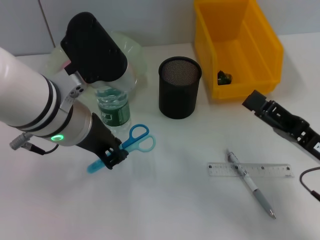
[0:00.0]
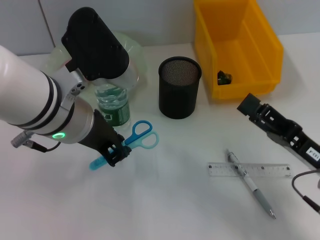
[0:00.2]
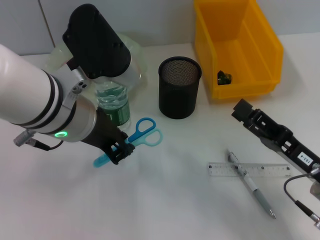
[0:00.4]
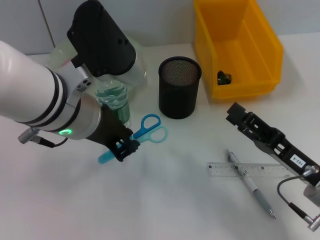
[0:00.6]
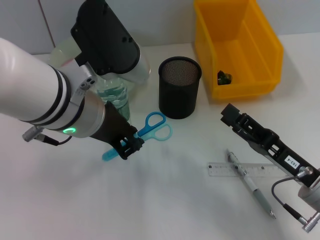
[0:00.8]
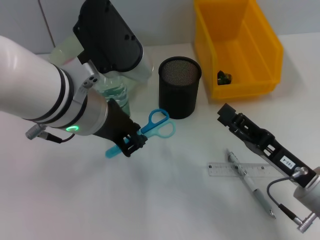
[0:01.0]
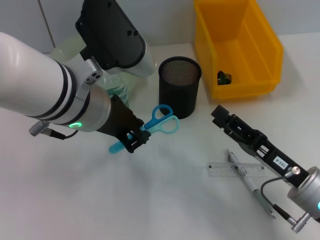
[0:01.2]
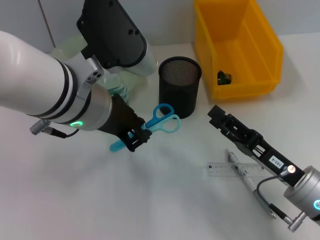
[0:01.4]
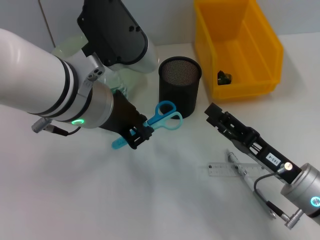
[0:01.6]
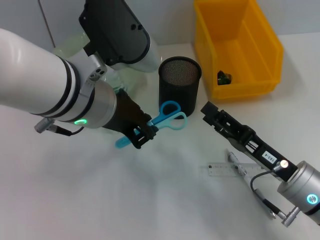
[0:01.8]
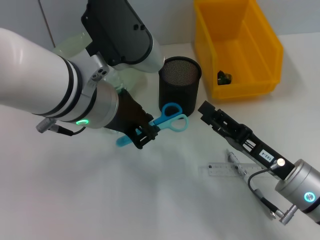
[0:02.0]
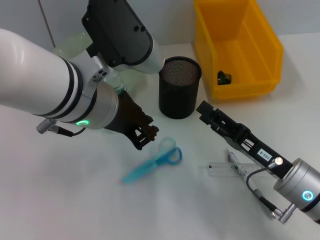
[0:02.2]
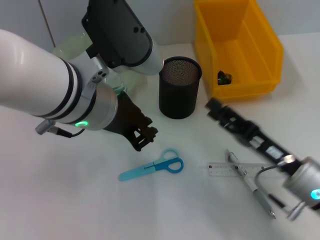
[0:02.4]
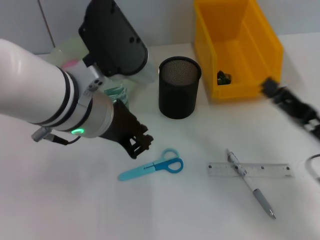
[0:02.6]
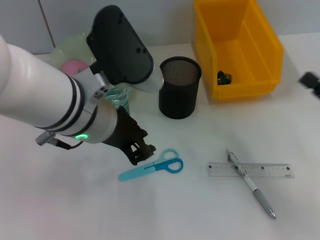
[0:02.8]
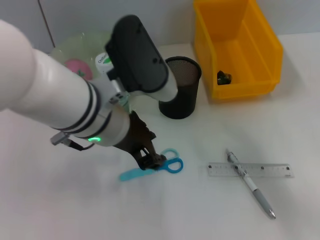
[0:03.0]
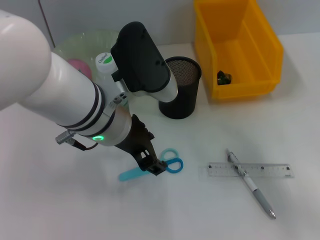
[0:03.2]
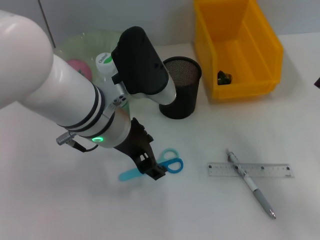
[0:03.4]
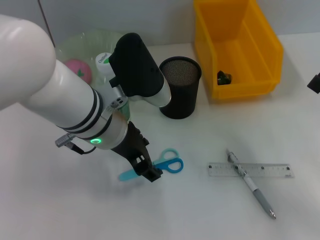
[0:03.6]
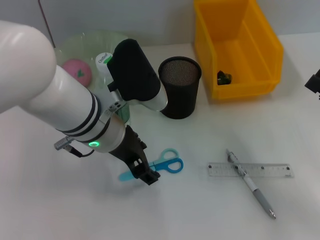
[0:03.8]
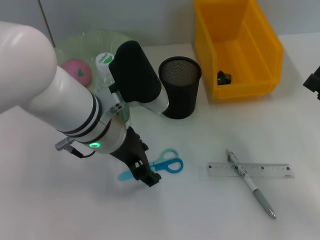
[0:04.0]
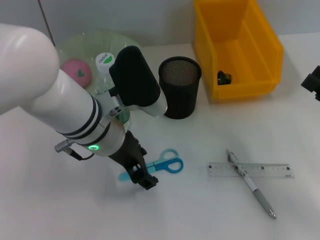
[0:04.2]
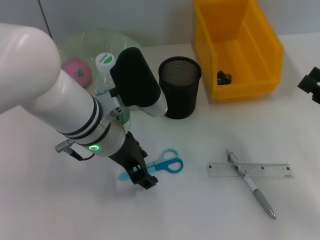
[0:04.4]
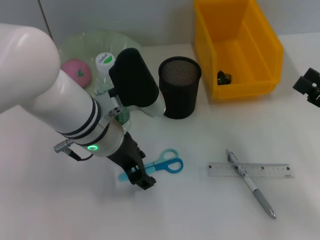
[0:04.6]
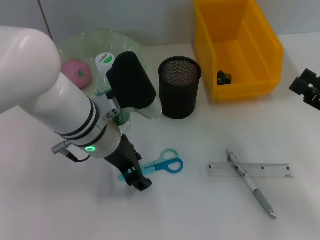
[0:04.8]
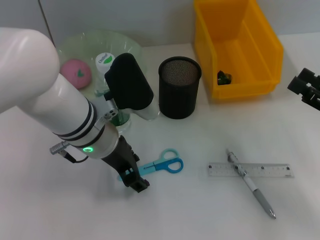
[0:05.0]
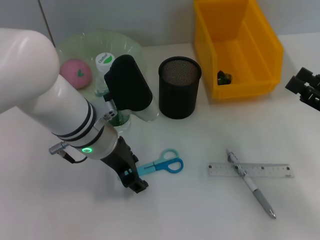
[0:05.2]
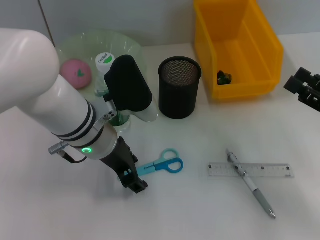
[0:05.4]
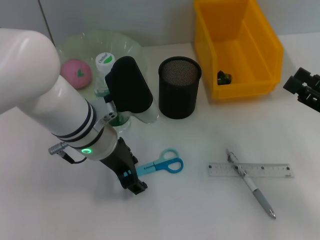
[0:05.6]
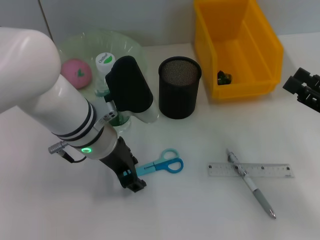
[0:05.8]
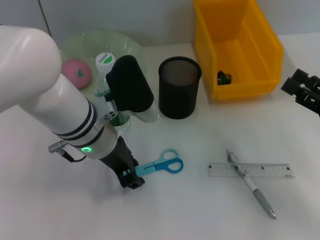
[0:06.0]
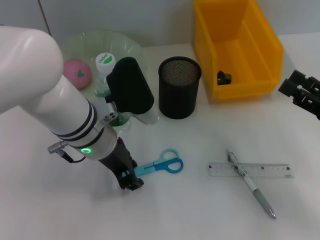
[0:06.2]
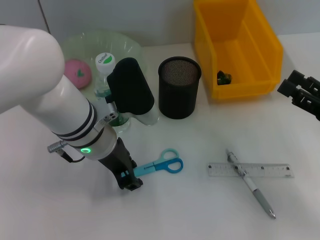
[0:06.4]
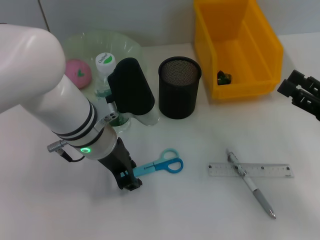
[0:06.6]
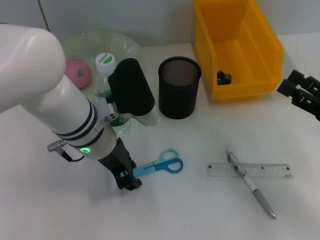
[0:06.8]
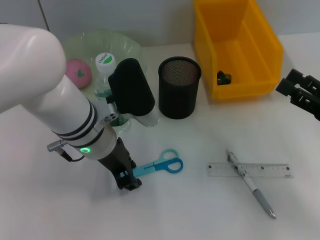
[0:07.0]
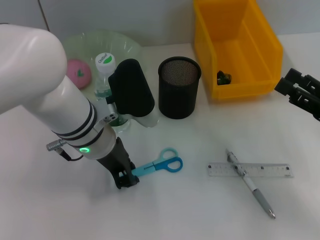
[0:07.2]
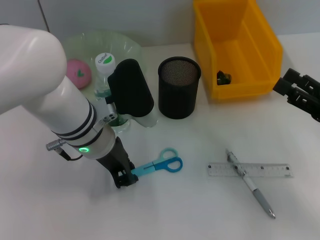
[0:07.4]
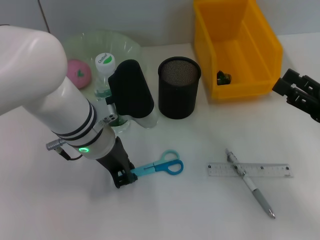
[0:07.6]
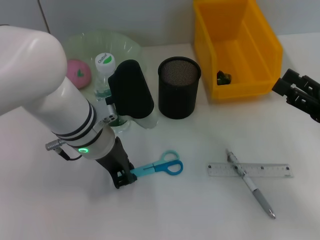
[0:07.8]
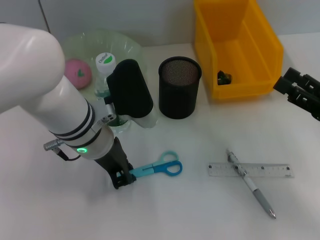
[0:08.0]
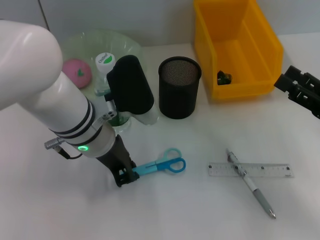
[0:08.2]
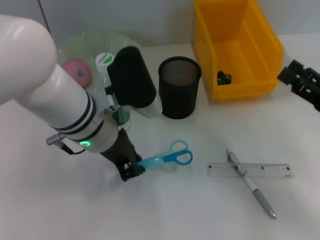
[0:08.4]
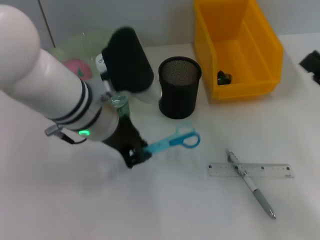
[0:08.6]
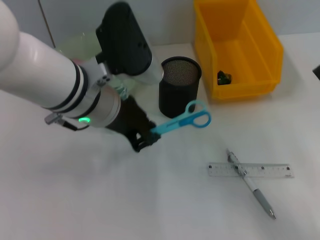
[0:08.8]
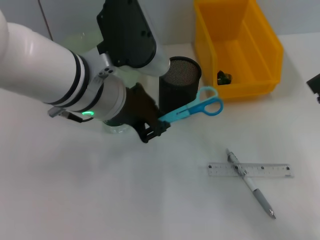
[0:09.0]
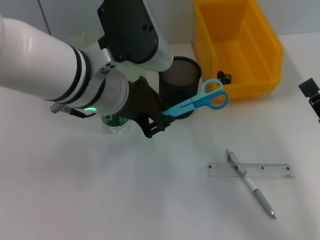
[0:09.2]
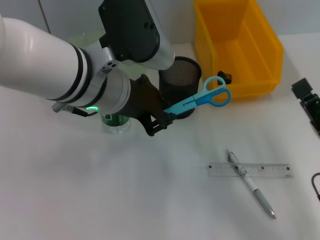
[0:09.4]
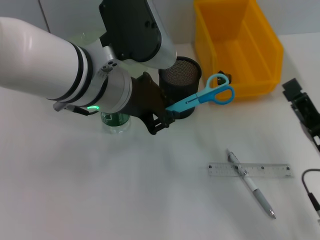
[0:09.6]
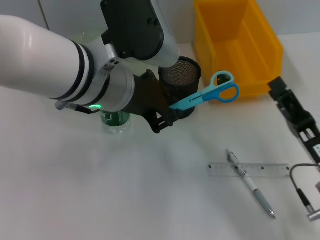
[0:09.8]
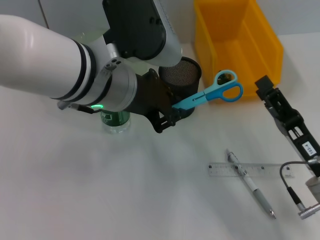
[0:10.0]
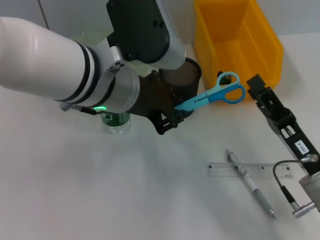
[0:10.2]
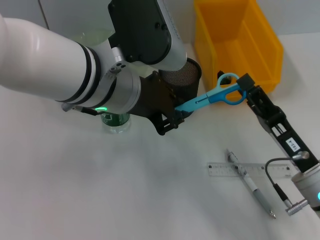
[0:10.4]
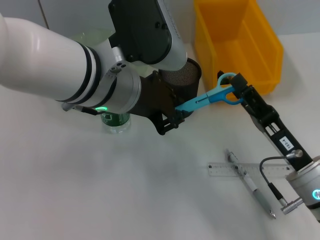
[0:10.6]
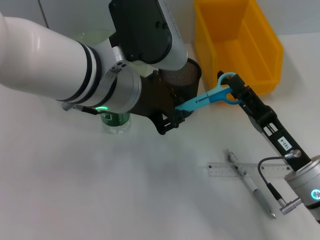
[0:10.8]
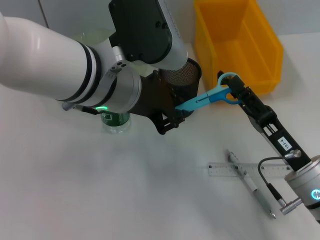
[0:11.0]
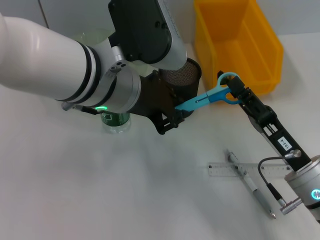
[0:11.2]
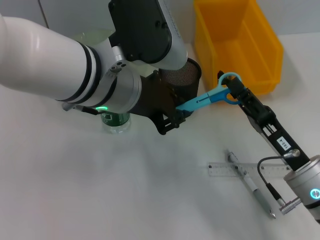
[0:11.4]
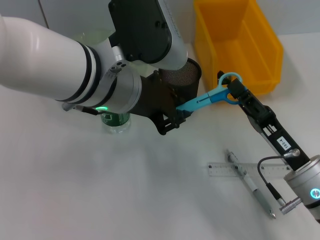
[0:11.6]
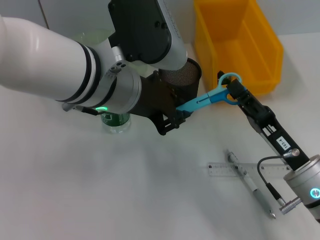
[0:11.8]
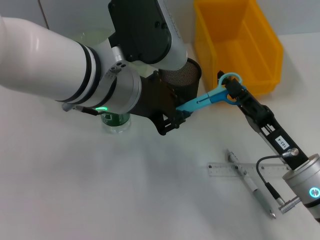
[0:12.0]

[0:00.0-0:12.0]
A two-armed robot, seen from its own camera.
Step, 0:00.0 to 0:07.4: Grab the blue scissors with the left hand.
0:00.0 to 0:01.6: The right gripper travels to the left by approximately 5 cm.
0:01.6 to 0:03.0: The right gripper is displaced to the right and upward by approximately 15 cm.
0:03.0 to 0:04.4: The left gripper heads downward, covering approximately 5 cm, and opens.
0:04.4 to 0:06.0: The left gripper closes up.
0:06.0 to 0:07.6: The left gripper closes its fingers.
0:07.6 to 0:09.0: The left gripper goes some 10 cm upward. Meanwhile the right gripper moves backward, approximately 5 cm.
0:09.0 to 0:10.4: The right gripper shifts approximately 10 cm to the left.
0:10.4 to 0:12.0: The right gripper closes up.

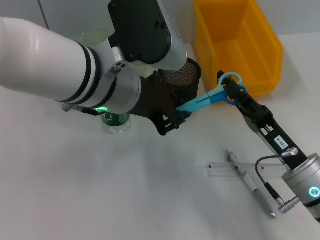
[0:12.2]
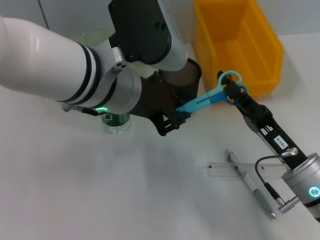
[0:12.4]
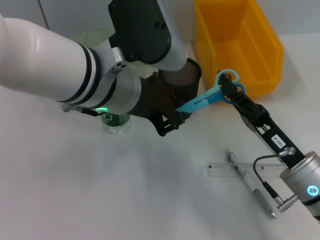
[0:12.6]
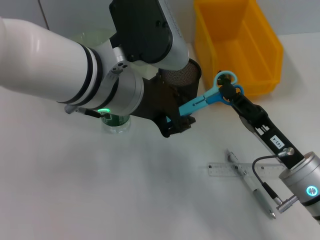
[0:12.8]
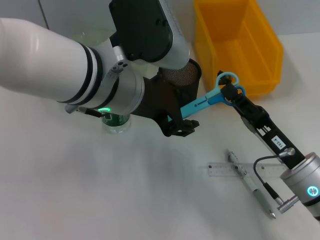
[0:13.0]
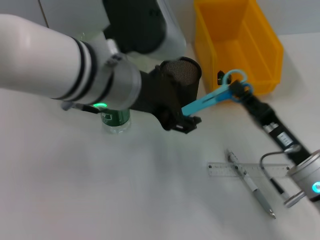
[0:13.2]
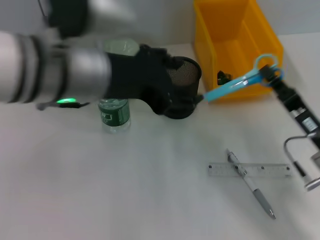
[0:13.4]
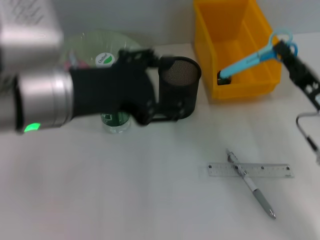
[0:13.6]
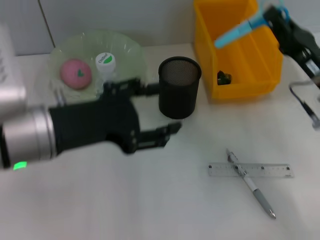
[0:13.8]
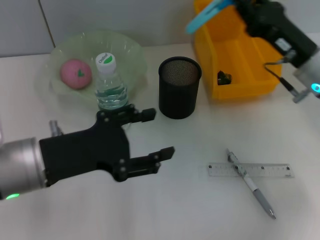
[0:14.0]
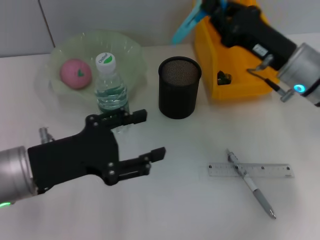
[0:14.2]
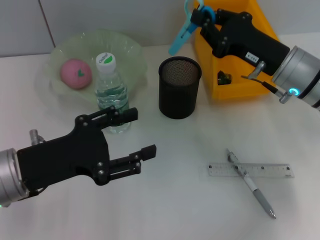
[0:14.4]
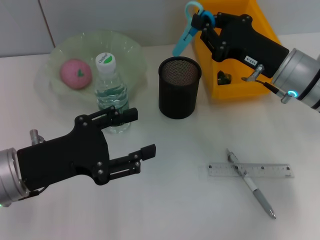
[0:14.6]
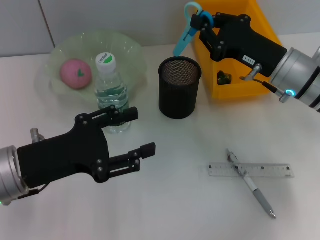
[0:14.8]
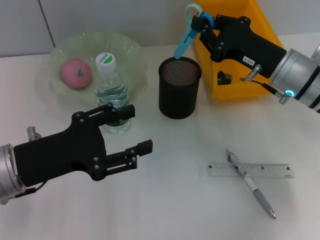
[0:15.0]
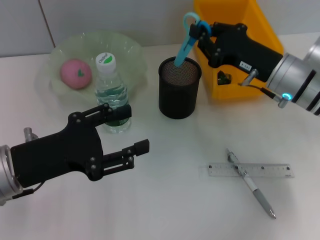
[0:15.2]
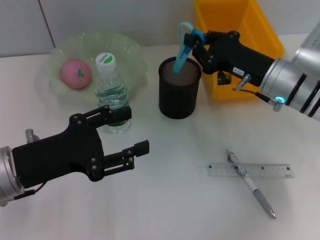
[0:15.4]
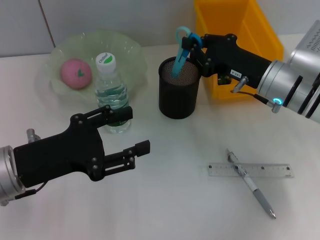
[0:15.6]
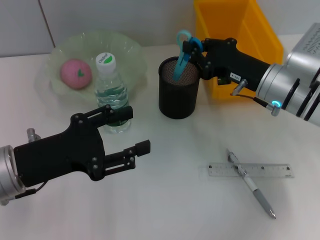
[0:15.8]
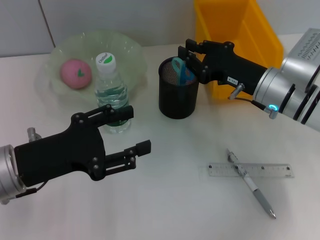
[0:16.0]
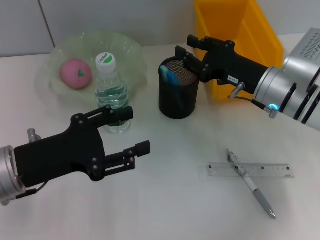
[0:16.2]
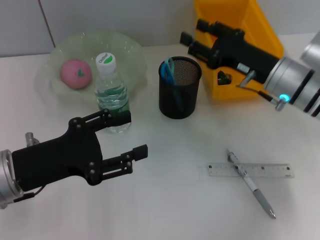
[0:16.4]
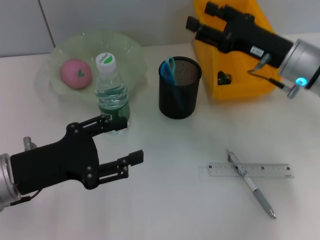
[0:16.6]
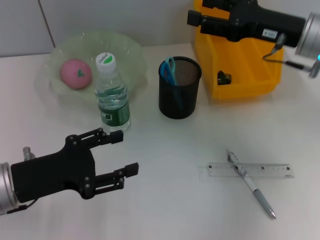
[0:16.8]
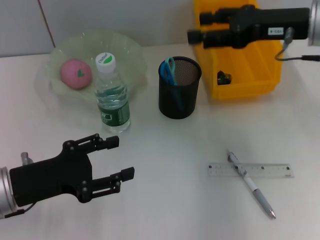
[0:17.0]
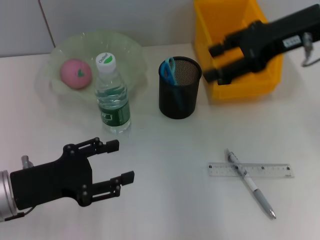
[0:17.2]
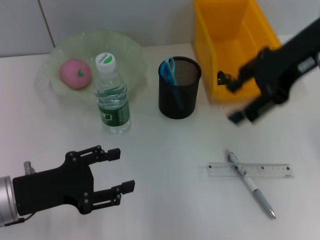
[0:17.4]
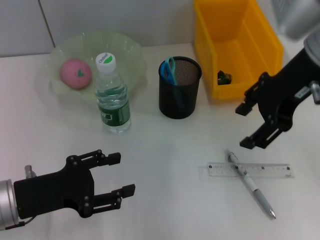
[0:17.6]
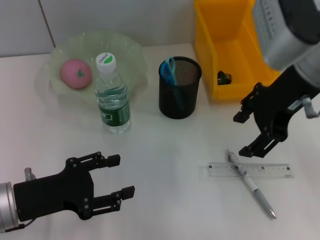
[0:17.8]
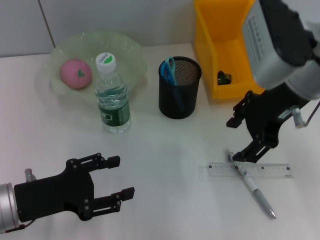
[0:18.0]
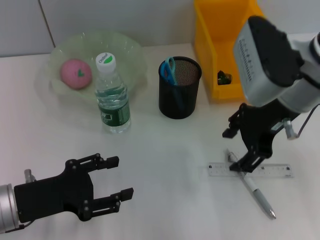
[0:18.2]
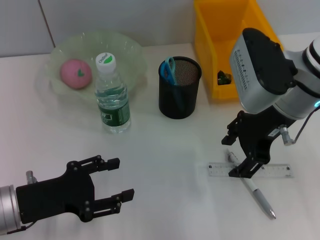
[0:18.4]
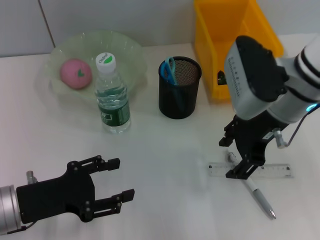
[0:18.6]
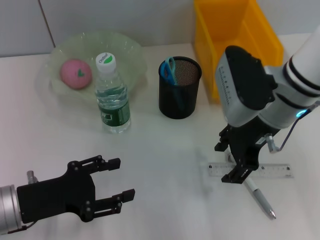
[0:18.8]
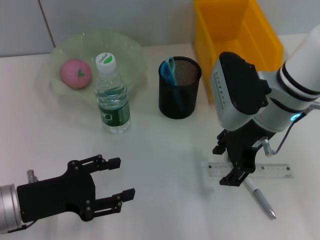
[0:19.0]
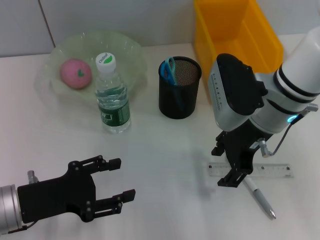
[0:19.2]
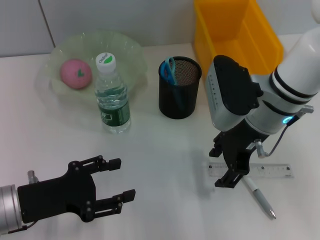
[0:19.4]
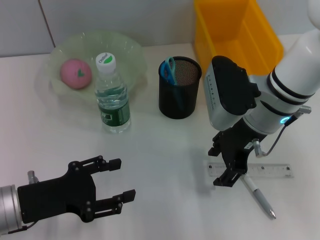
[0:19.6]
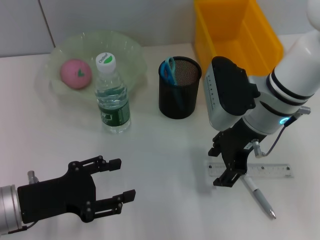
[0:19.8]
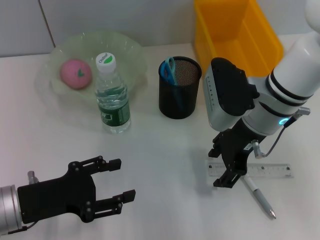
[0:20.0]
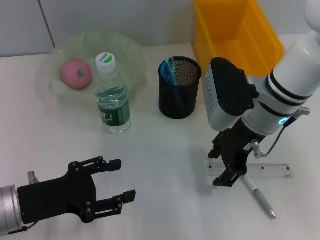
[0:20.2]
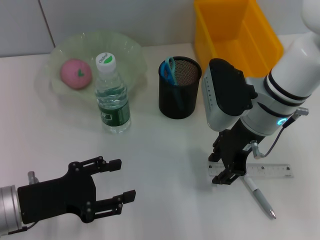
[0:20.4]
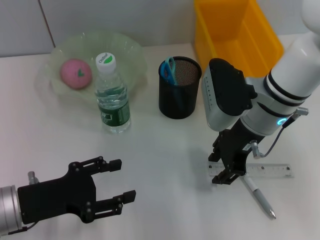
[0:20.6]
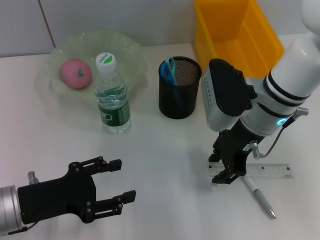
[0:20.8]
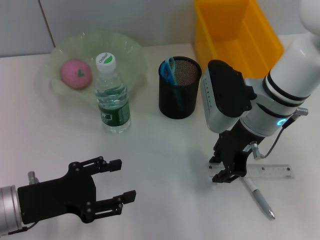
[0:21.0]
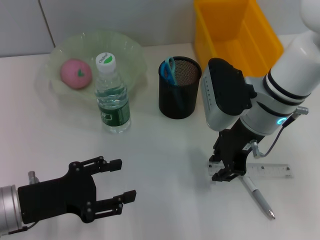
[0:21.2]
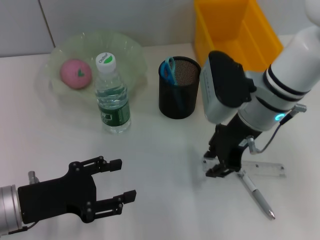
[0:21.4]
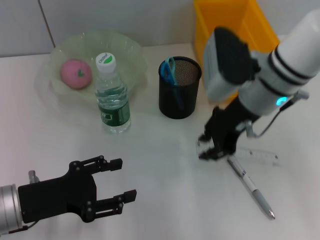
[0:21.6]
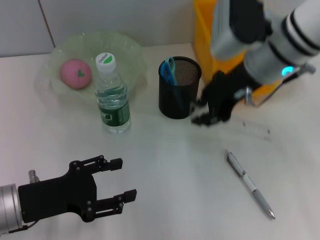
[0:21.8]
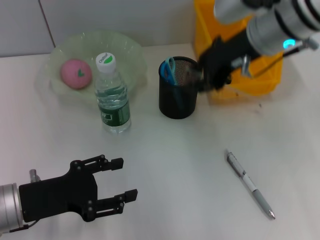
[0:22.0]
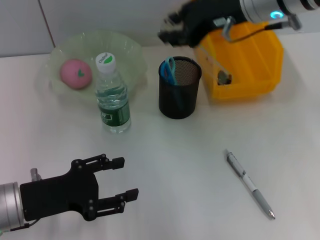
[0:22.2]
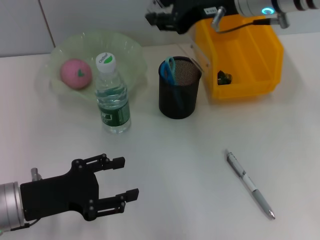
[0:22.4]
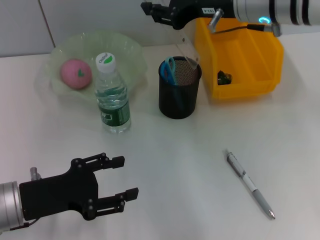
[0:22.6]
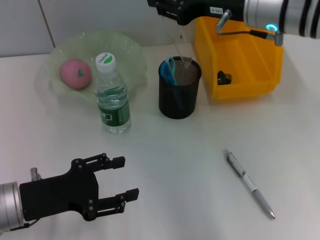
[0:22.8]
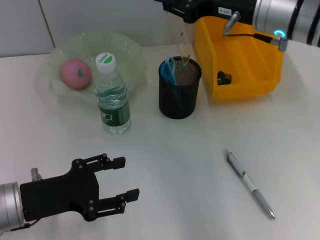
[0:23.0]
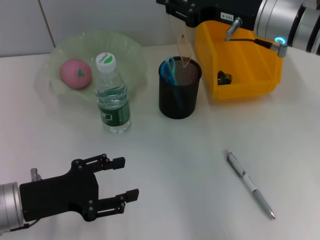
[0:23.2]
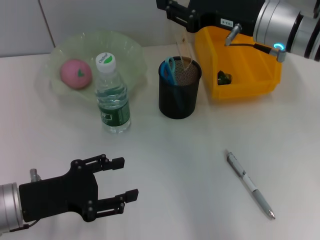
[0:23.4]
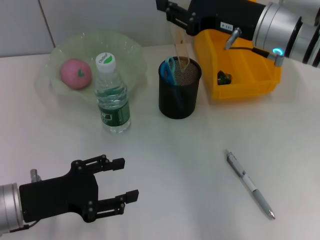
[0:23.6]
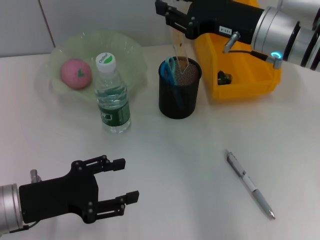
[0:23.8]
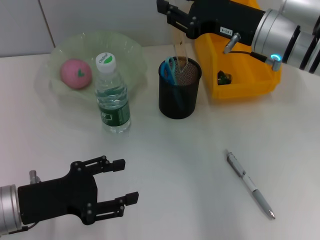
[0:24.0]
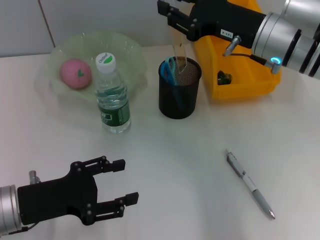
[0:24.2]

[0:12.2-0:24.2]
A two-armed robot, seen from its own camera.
Step, 0:13.6 to 0:17.2: Place the blue scissors into the pen holder with the right hand.
Step, 0:17.4 to 0:20.8: Grab the ruler with the right hand.
0:12.2 to 0:13.8: The left gripper is displaced to the left and backward by approximately 10 cm, and opens its fingers. The right gripper shifts roughly 15 cm forward, upward and to the right.
0:13.8 to 0:15.2: The right gripper changes place by approximately 5 cm. The left gripper travels downward by approximately 5 cm.
0:15.2 to 0:16.6: The right gripper opens up.
0:16.6 to 0:18.2: The right gripper travels upward and to the left by roughly 10 cm.
0:18.2 to 0:19.8: The right gripper shifts about 5 cm downward.
0:19.8 to 0:21.2: The right gripper closes.
0:21.2 to 0:22.6: The right gripper goes roughly 10 cm upward.
0:22.6 to 0:24.2: The right gripper heads downward, covering roughly 5 cm.
